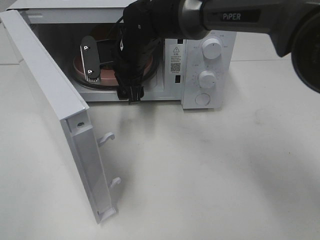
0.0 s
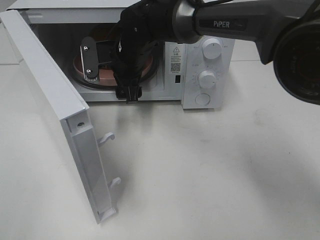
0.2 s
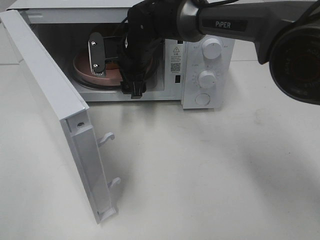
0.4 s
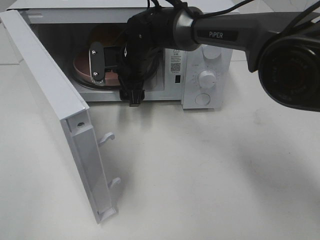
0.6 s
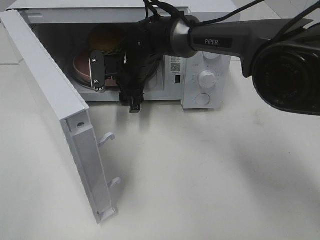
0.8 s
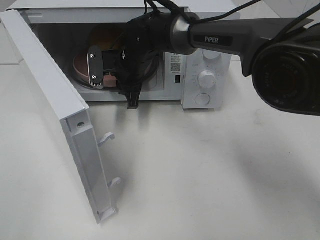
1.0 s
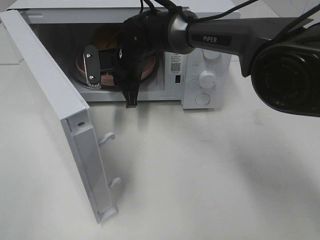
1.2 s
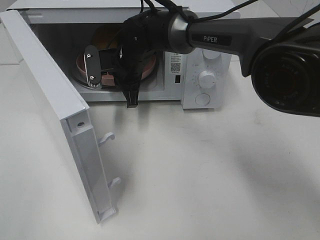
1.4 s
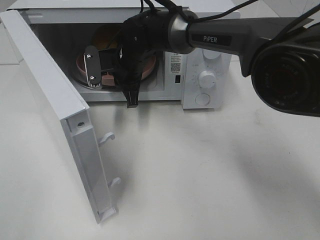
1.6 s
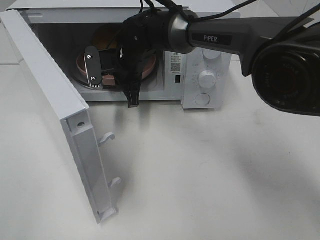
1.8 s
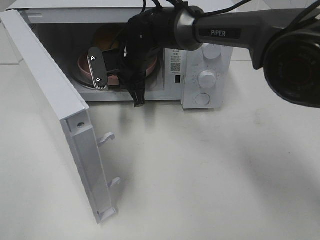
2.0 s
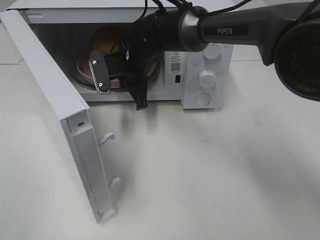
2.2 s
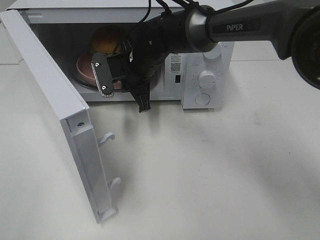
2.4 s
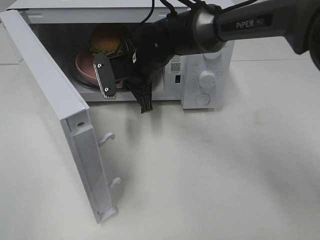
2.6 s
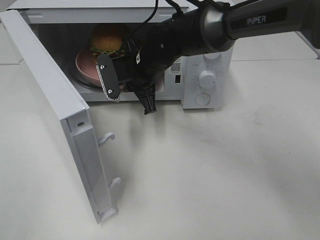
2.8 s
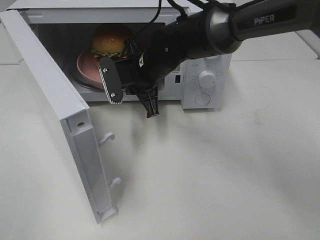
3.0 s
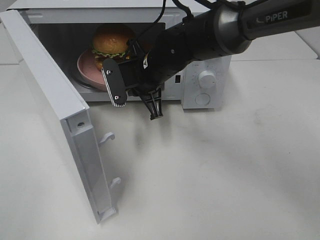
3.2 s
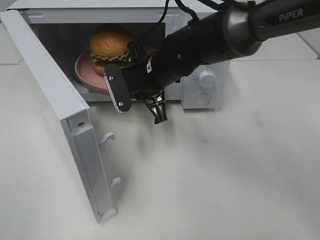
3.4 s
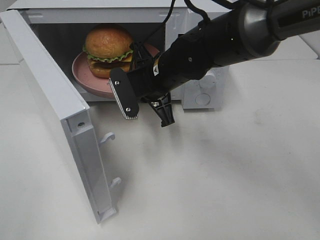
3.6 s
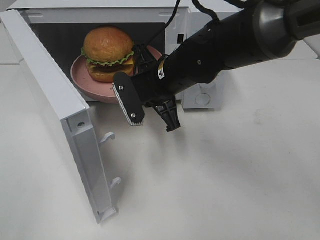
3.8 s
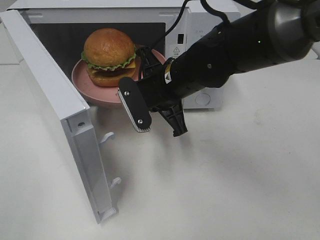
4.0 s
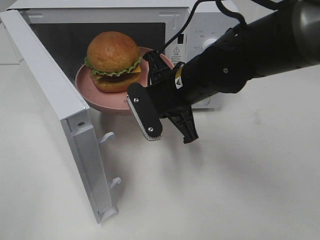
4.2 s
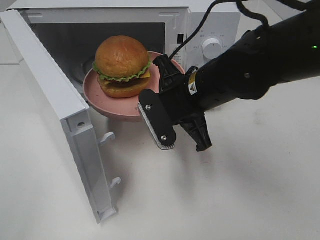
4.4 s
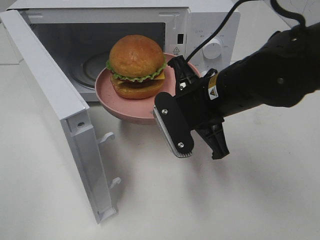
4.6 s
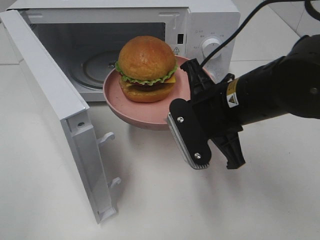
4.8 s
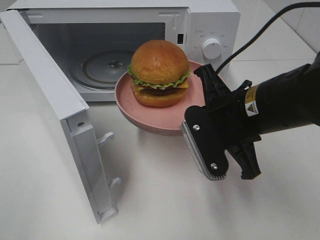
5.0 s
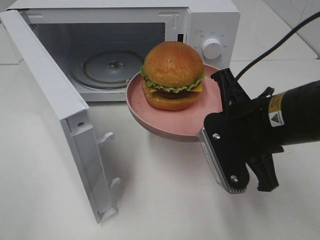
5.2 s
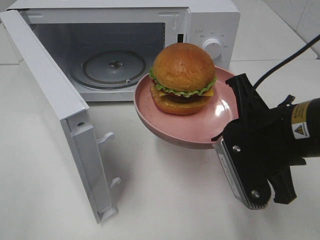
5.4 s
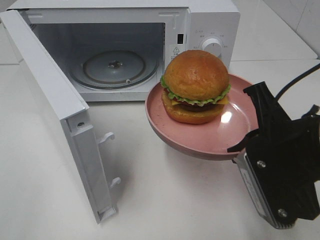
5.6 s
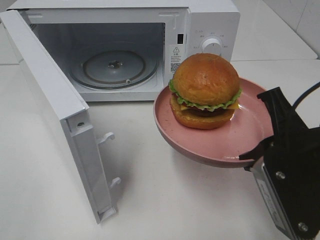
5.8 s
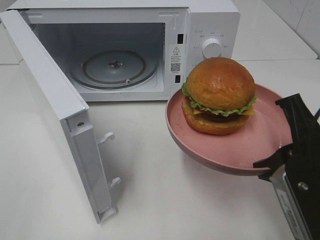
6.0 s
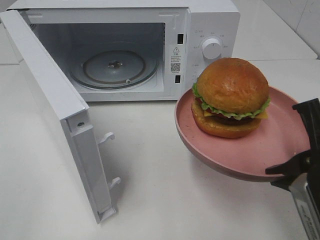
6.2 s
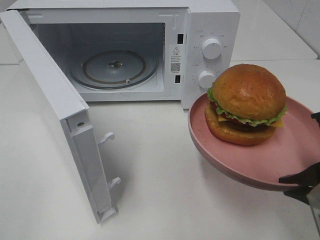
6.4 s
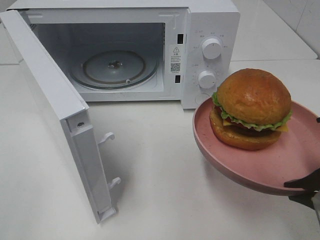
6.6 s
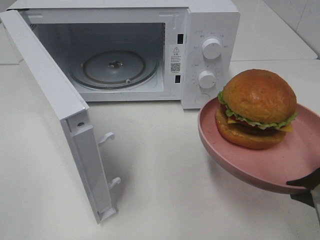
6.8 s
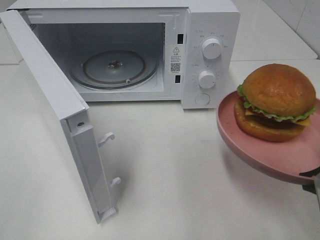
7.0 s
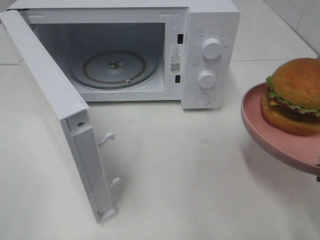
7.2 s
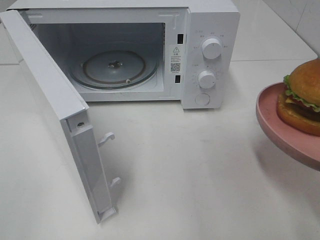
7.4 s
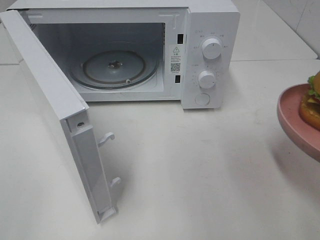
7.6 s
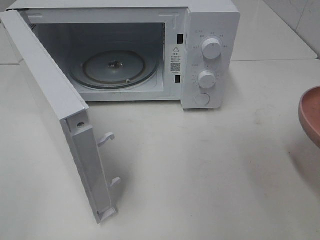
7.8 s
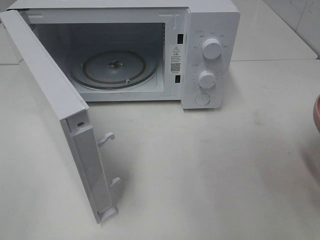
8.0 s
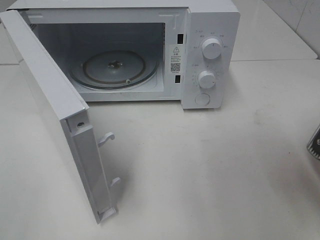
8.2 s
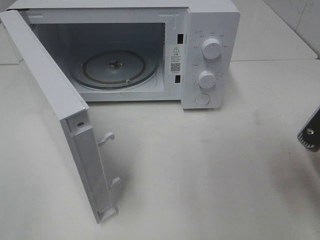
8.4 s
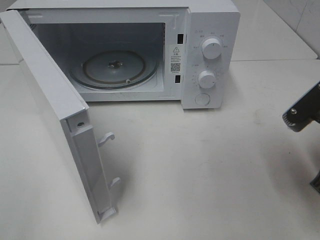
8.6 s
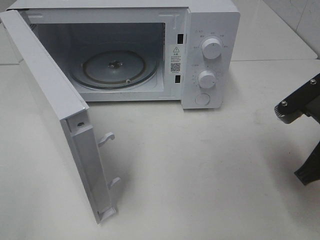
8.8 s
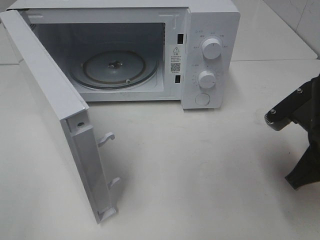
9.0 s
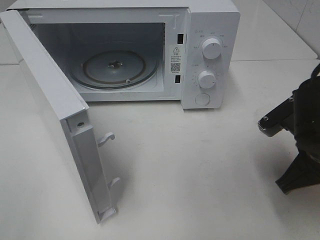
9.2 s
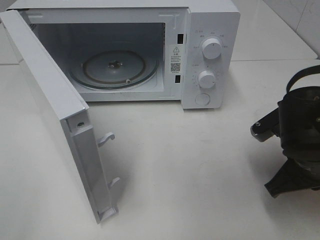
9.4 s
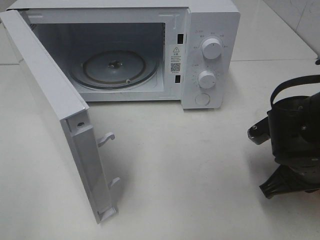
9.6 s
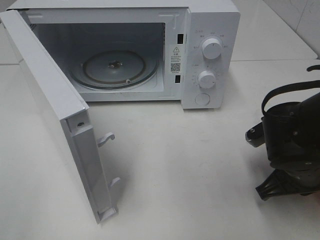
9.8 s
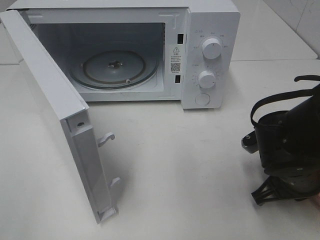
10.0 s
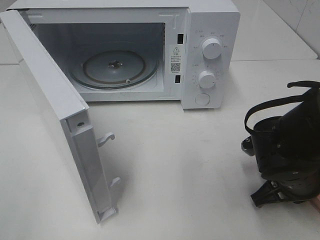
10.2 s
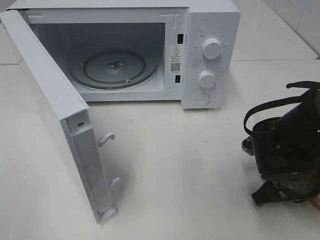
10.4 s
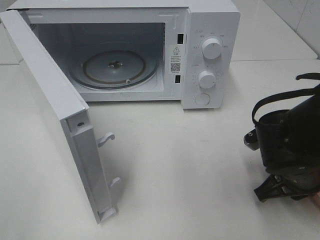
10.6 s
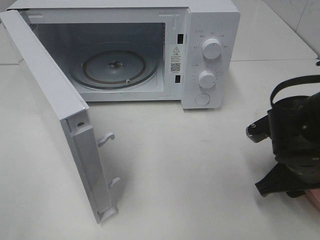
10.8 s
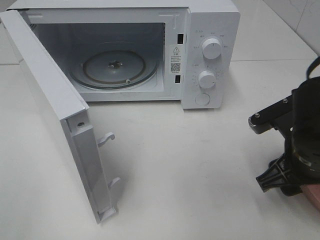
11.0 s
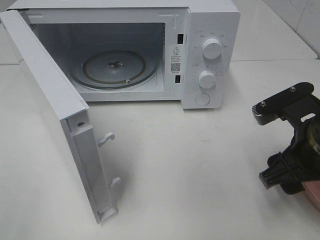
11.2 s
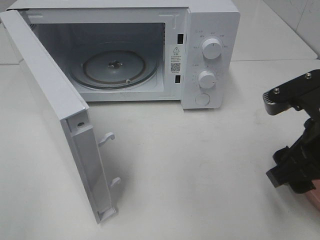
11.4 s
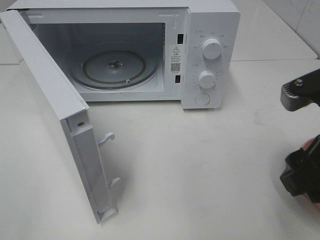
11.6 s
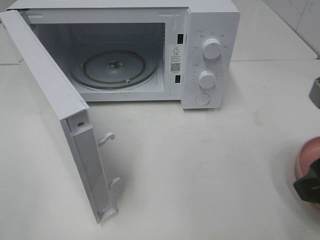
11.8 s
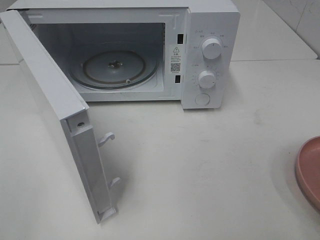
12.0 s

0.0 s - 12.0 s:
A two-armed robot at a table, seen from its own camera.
Task of the whole recording: Heat the burger.
Step, 1.4 s - 11.2 s: Right hand: place the plate on the table.
0.0 s - 1.6 s: The right gripper closes.
1.6 s - 3.0 s: The right gripper shifts roughly 5 cm backward.
3.0 s - 4.4 s: The right gripper travels backward and to the right by some 15 cm.
4.4 s - 6.0 s: The right gripper goes approximately 20 cm backward and to the right.
6.0 s - 7.6 s: The right gripper goes approximately 5 cm to the right.
7.6 s - 9.0 s: The right gripper shifts roughly 10 cm forward.
9.0 s - 10.4 s: The right gripper is displaced downward by some 10 cm.
10.4 s - 12.0 s: The right gripper is displaced upward and backward by about 20 cm, and opens its fingers.

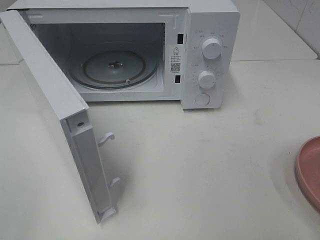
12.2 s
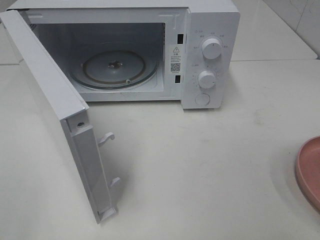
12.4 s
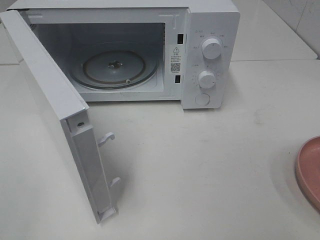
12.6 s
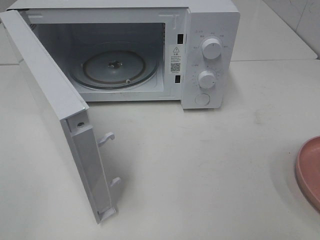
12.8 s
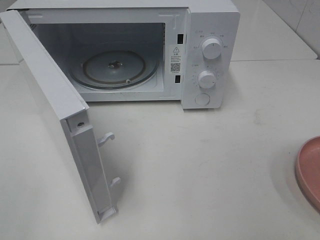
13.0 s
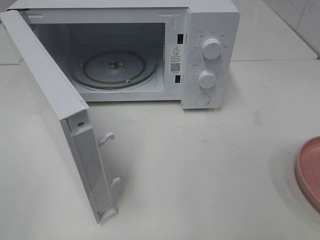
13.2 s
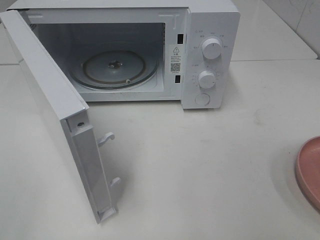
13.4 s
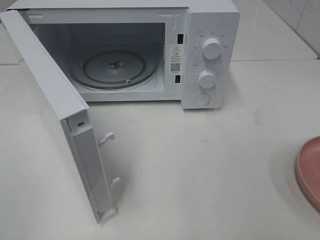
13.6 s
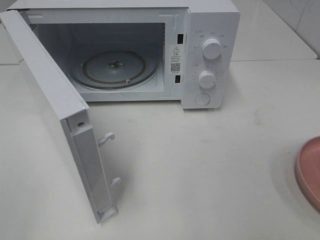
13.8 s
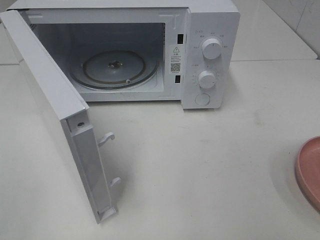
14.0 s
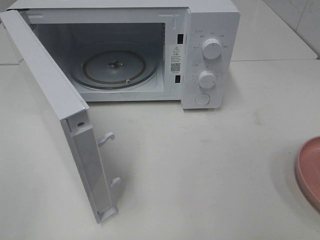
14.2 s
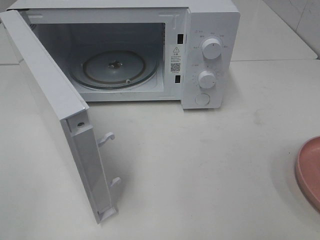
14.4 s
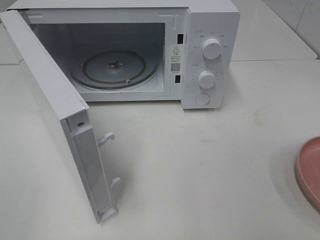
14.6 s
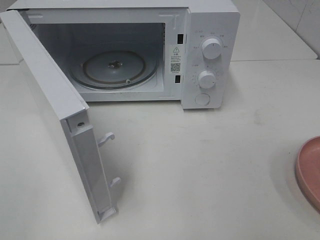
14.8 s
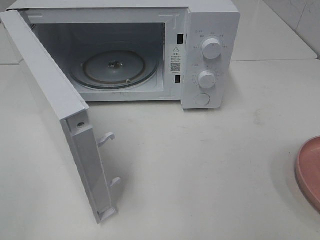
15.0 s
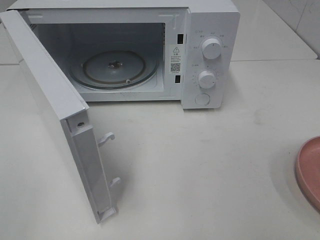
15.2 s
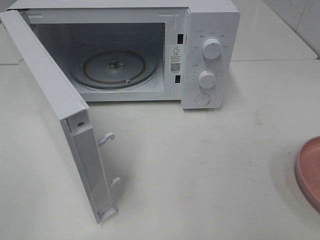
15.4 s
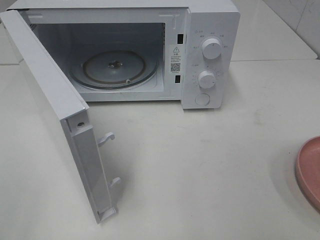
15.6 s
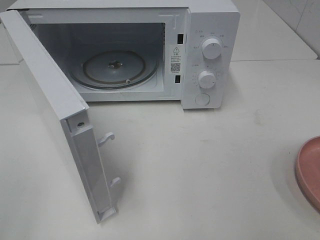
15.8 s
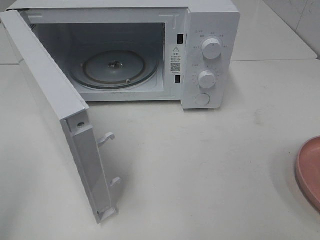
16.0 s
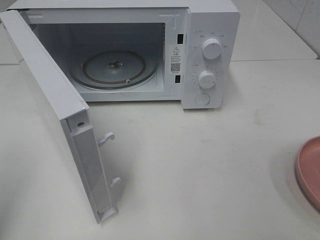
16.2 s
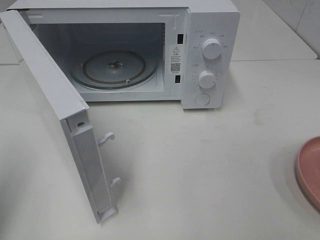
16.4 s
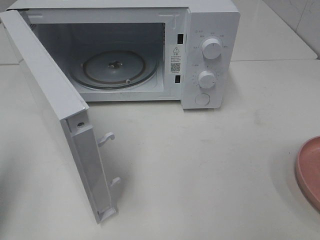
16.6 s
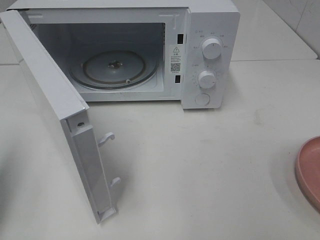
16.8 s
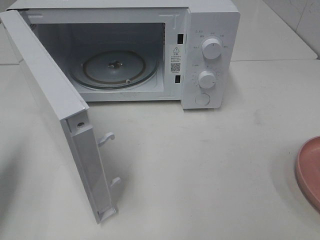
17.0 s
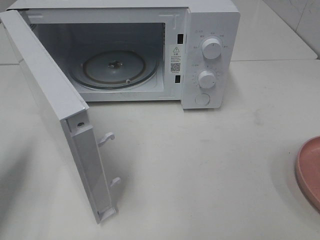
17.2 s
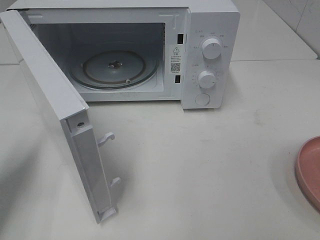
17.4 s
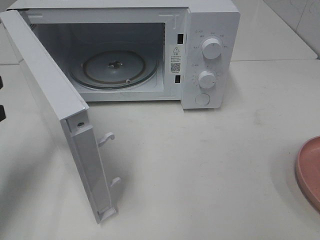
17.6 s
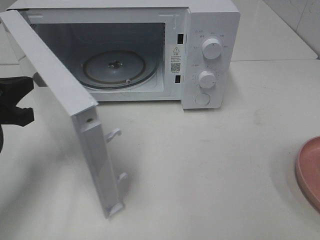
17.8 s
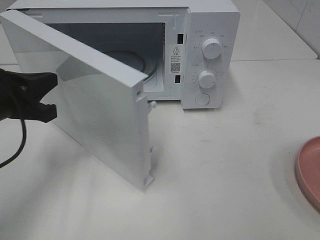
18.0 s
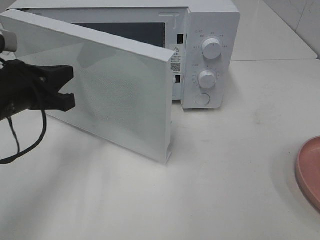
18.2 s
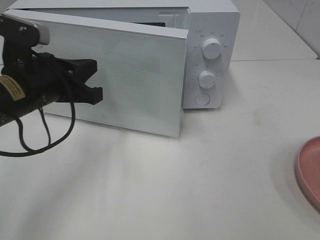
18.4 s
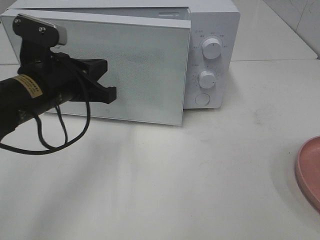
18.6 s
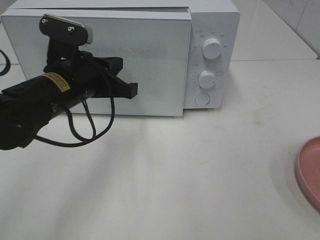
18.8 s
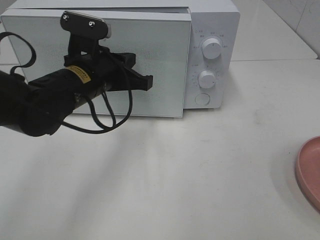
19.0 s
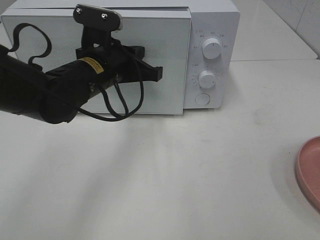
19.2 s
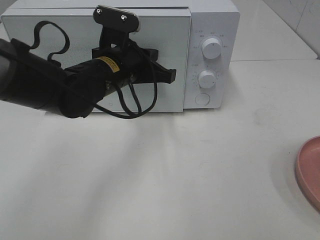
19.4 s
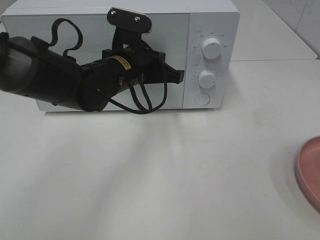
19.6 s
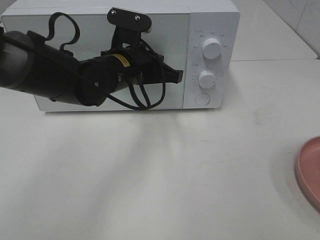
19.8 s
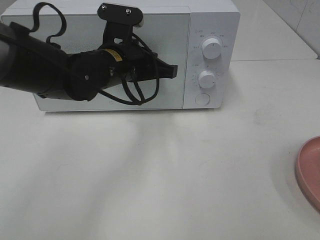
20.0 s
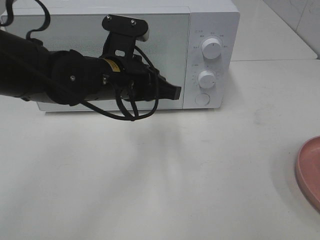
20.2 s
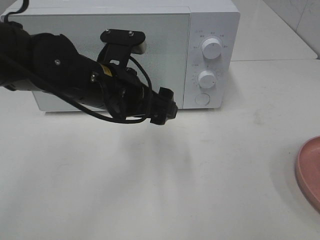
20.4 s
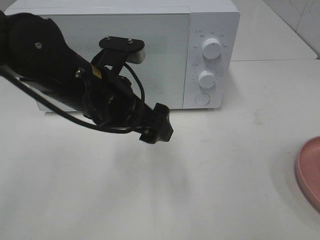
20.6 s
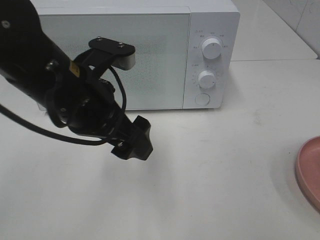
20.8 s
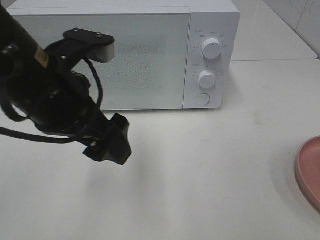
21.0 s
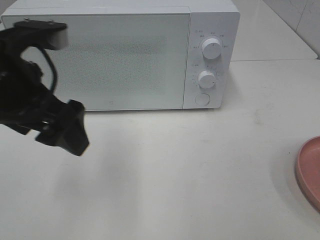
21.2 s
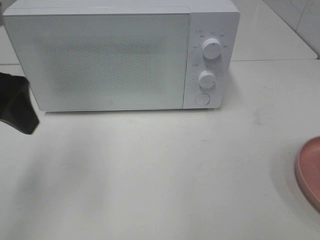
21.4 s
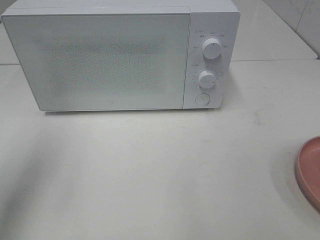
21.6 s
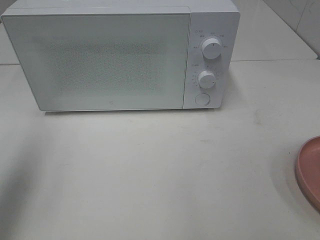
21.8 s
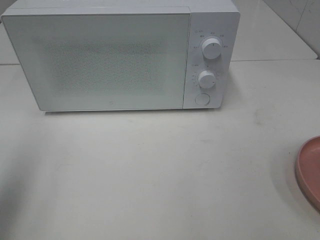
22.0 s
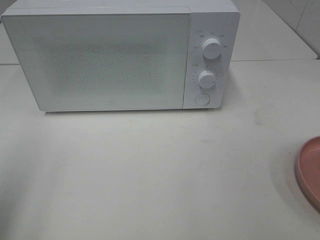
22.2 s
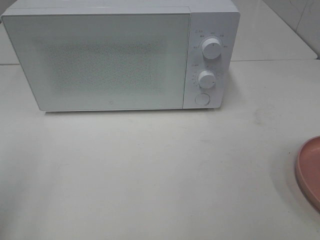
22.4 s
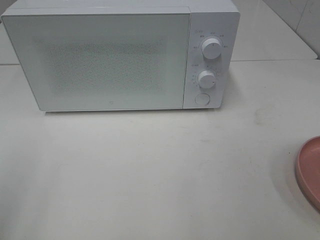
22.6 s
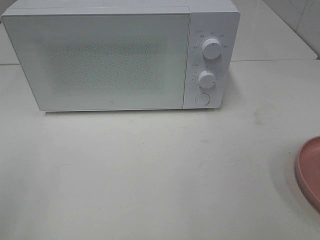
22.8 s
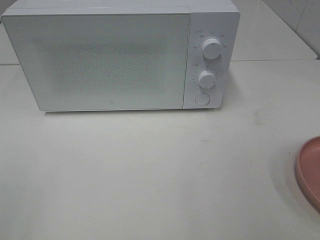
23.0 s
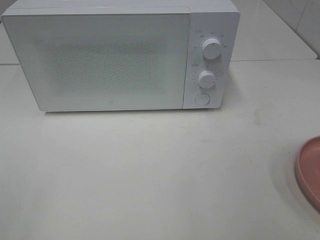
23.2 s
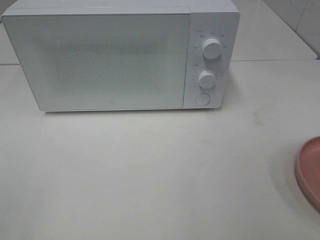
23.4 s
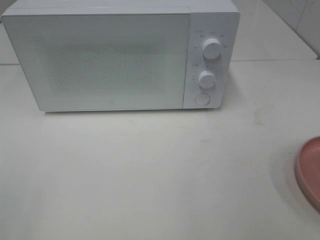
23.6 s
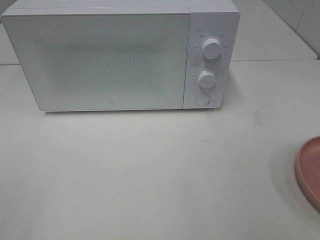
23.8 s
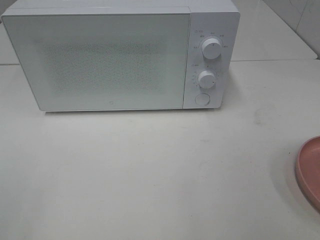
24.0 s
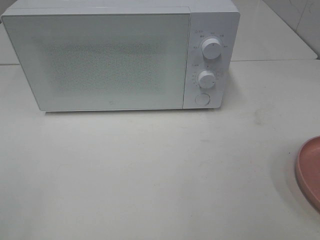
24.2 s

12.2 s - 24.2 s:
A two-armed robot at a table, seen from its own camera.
Task of the whole recording: Heat the burger.
Step, 12.2 s - 20.4 s: Left hand: close the microwave door.
13.8 s - 15.2 s: Neither gripper changes place.
15.2 s - 16.6 s: The left gripper is displaced forward by roughly 15 cm, and closes up.
16.6 s - 18.2 s: The left gripper travels to the right, forward and downward by approximately 20 cm.
18.2 s - 19.8 s: The left gripper goes about 15 cm to the right and forward.
19.8 s - 21.2 s: The left gripper goes approximately 20 cm backward, to the left and upward, and opens its fingers.
21.2 s - 22.6 s: The left gripper travels backward and to the left by roughly 20 cm.
